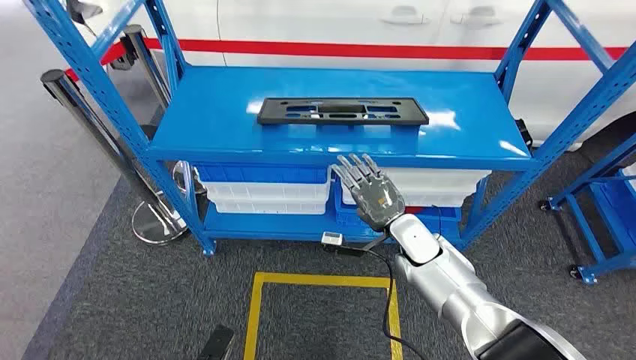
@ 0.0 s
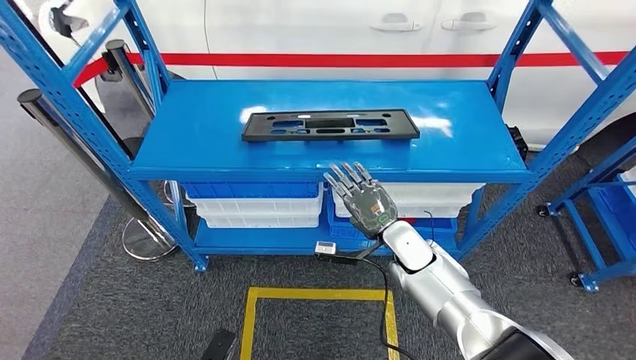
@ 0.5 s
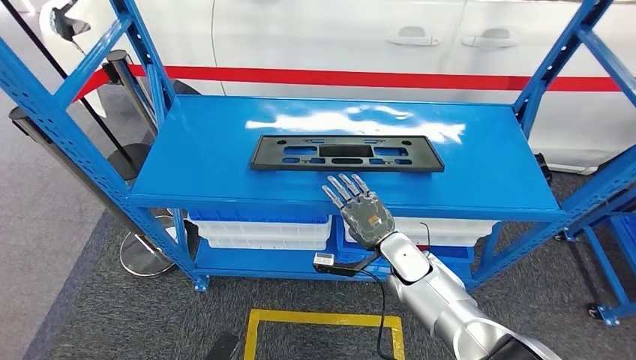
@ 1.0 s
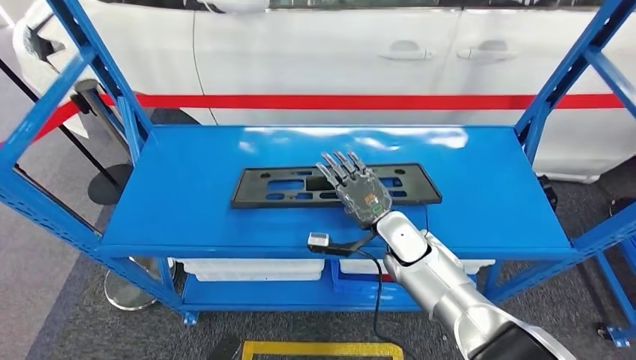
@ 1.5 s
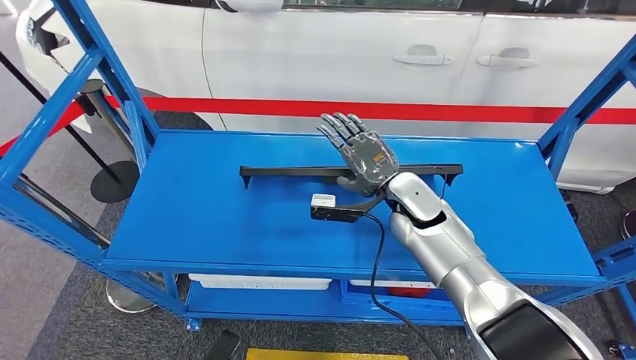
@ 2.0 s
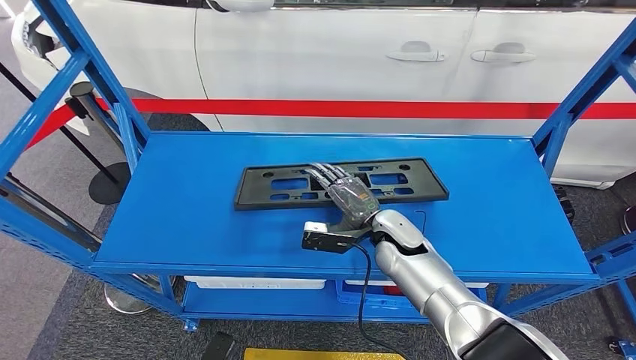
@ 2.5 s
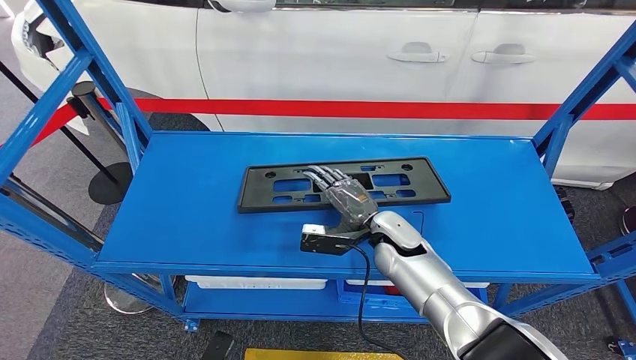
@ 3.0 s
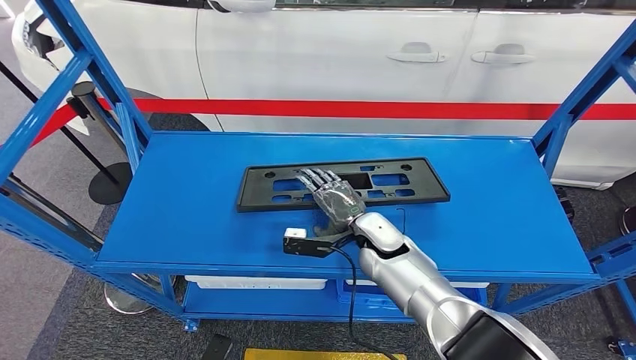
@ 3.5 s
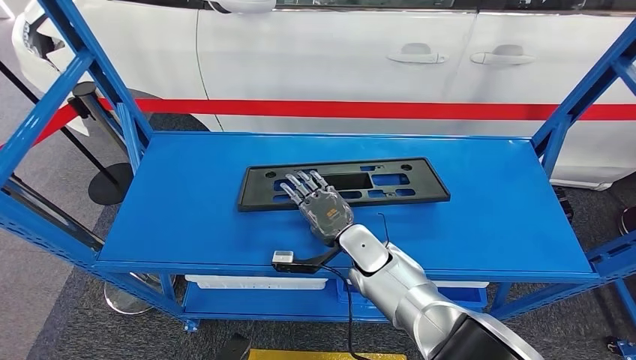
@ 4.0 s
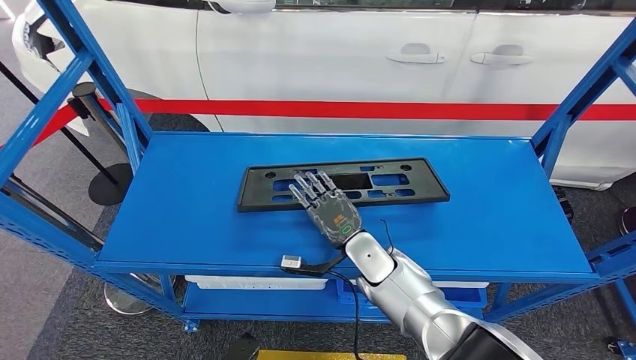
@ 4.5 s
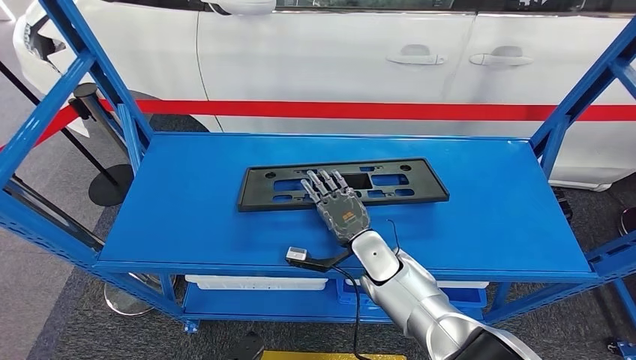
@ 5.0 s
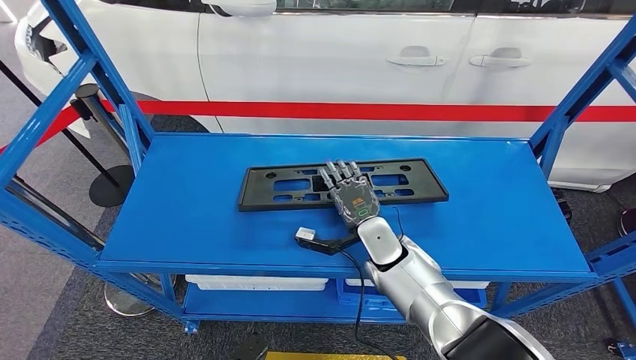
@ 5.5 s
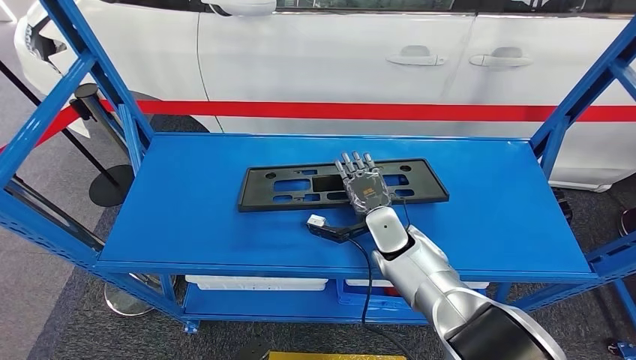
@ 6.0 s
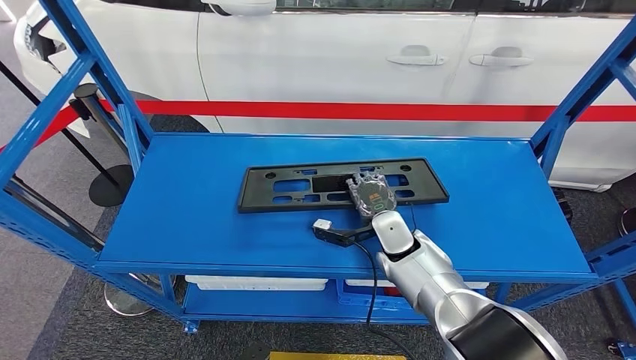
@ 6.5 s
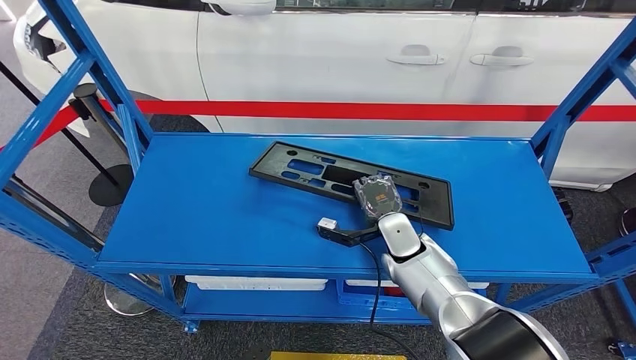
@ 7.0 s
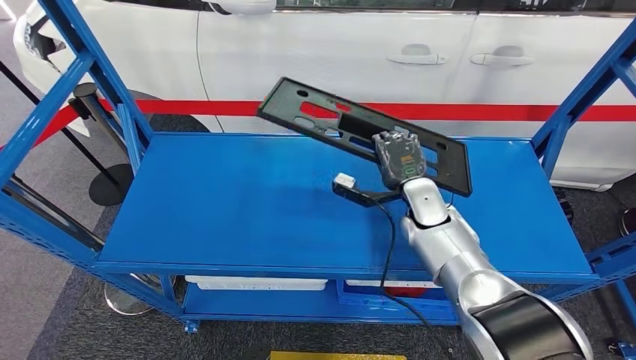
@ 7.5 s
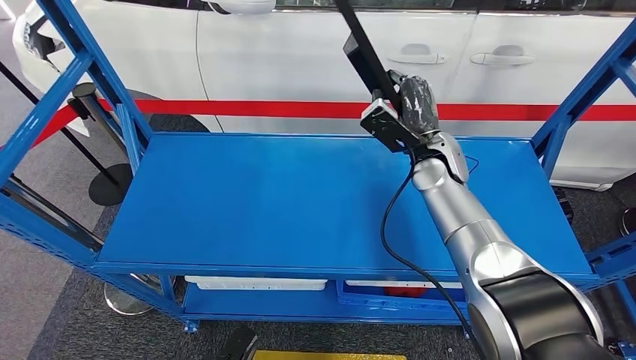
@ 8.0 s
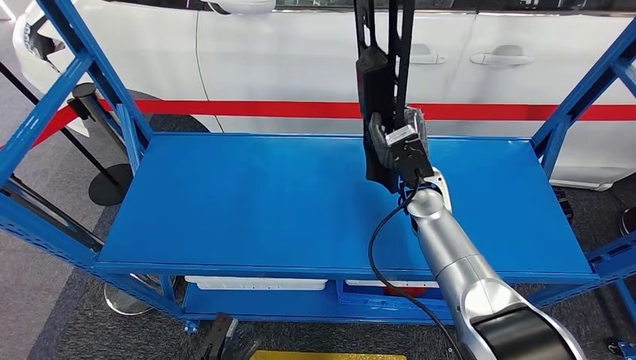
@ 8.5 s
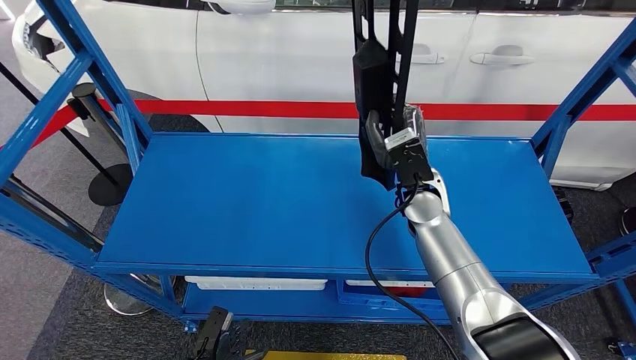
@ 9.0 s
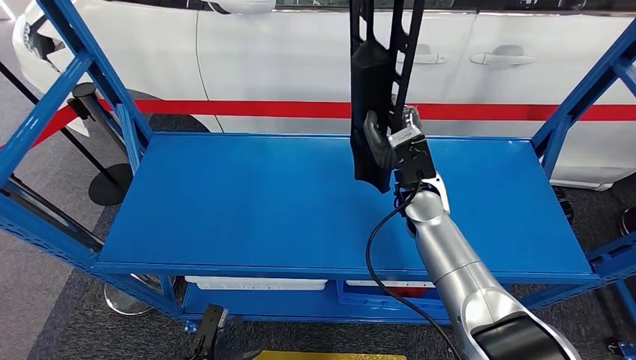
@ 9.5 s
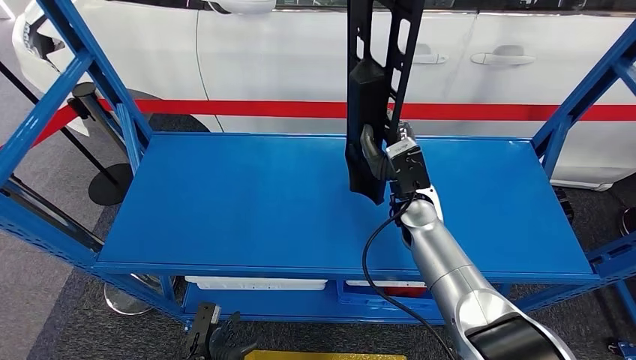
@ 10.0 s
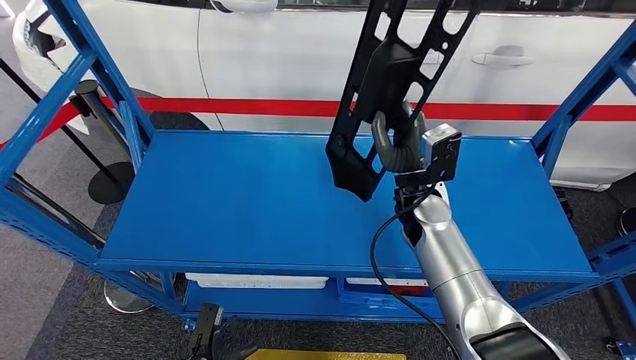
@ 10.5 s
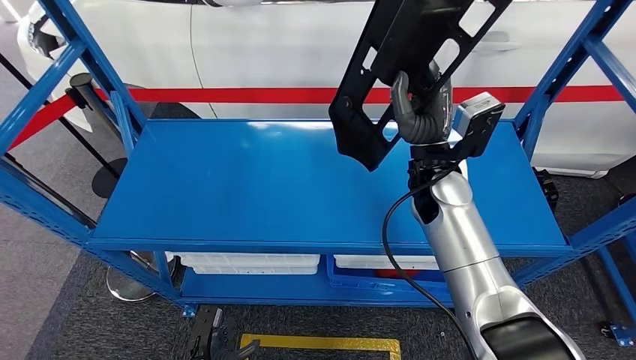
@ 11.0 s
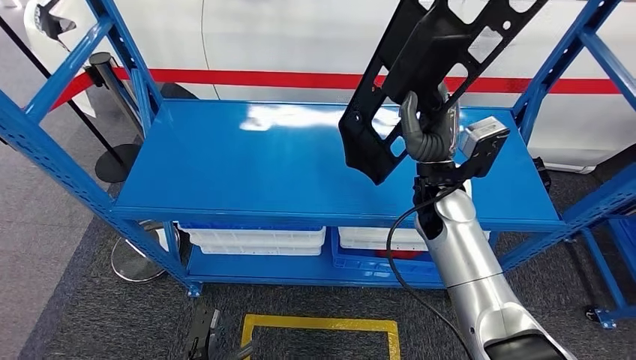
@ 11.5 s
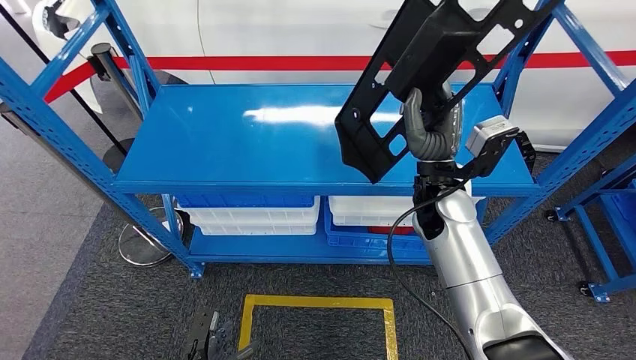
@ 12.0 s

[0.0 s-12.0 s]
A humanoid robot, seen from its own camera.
Step, 0.0 to 8.0 s: Pick up the large parts from the shelf.
4.0 to 6.0 s: The right hand ends up approximately 5 cm from where it was.
8.0 to 10.0 s: The right hand moves downward, roughly 5 cm.

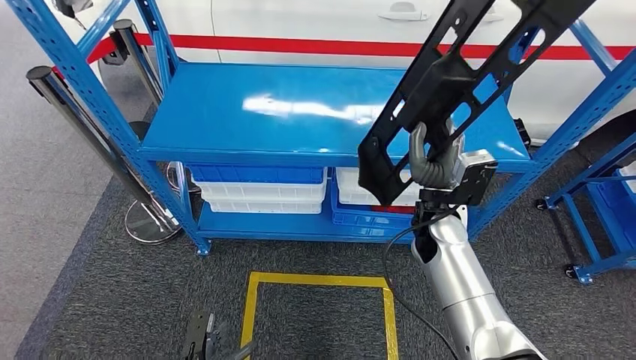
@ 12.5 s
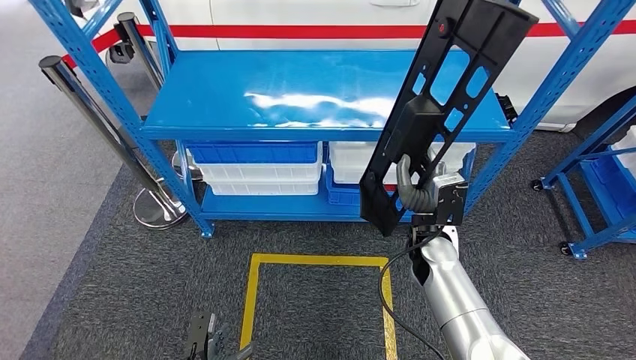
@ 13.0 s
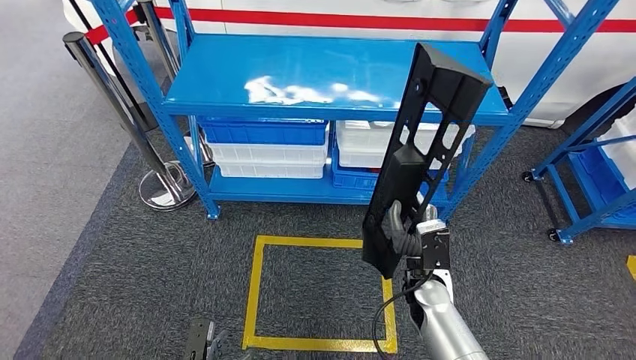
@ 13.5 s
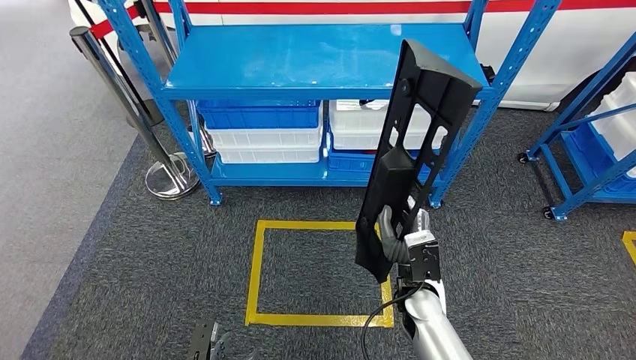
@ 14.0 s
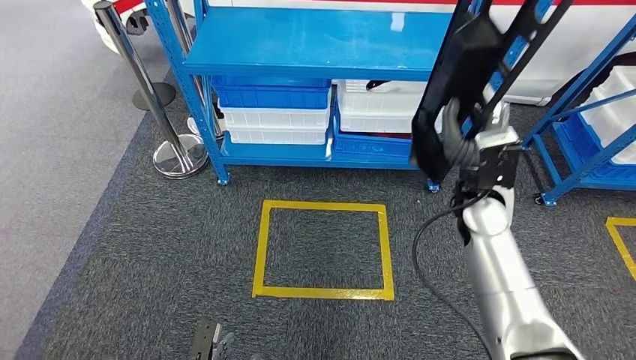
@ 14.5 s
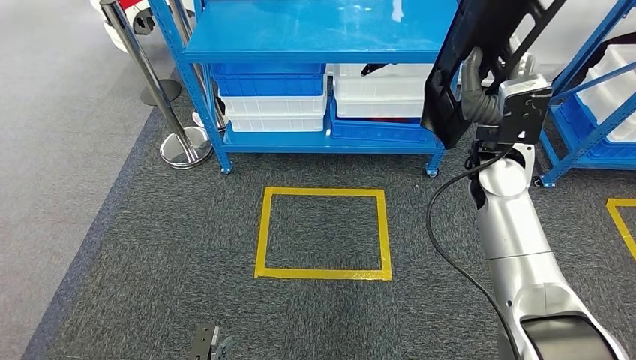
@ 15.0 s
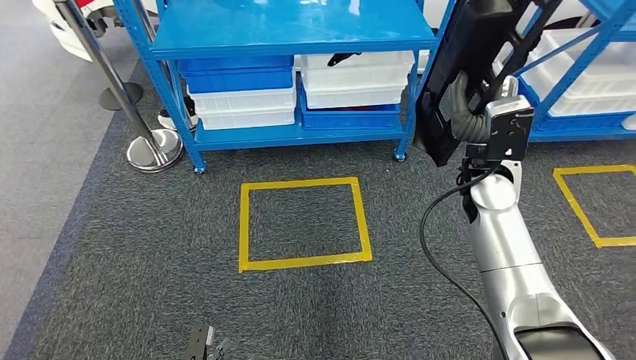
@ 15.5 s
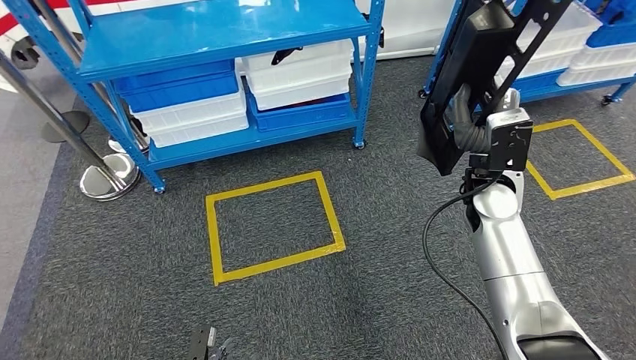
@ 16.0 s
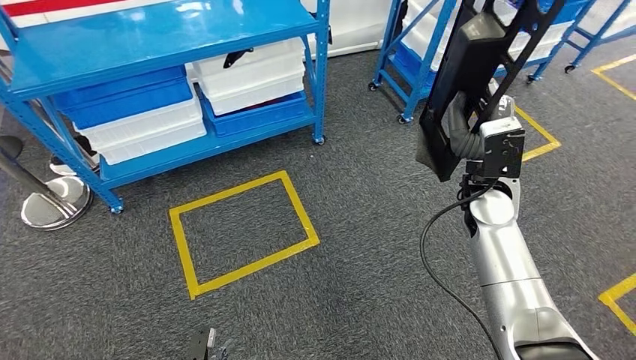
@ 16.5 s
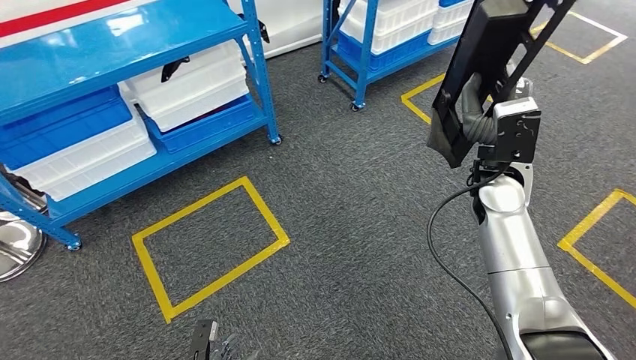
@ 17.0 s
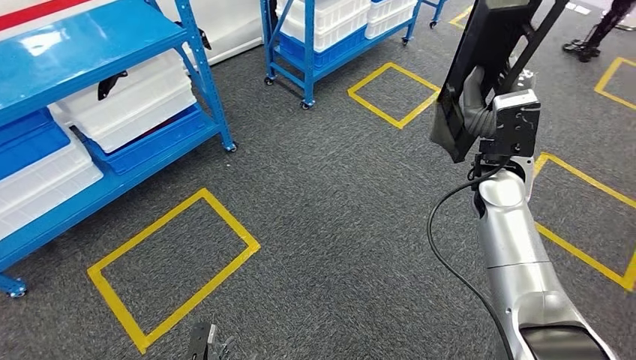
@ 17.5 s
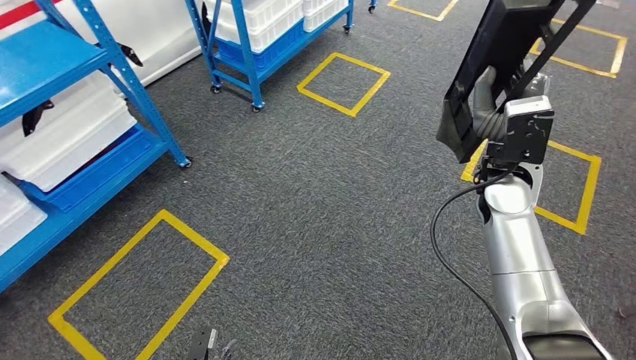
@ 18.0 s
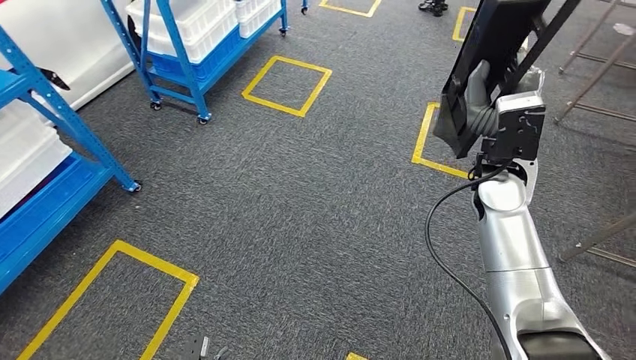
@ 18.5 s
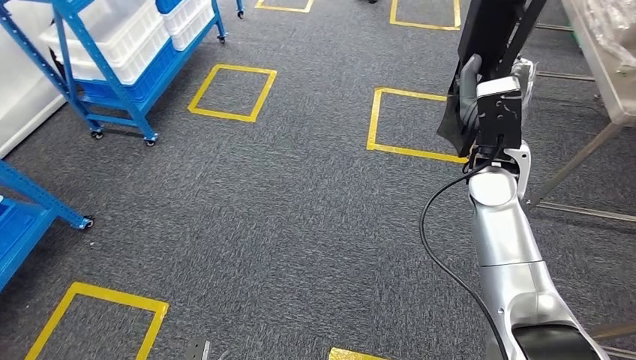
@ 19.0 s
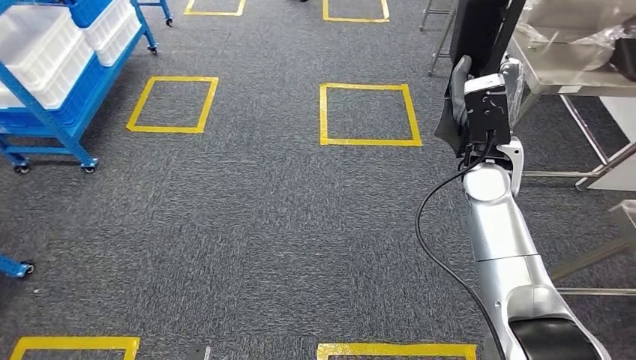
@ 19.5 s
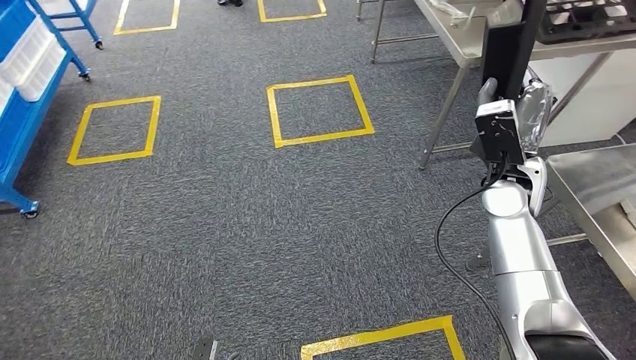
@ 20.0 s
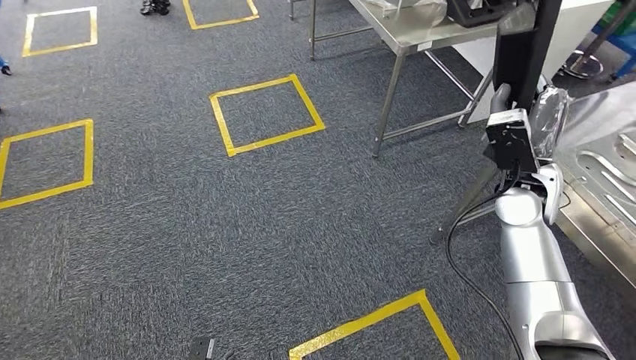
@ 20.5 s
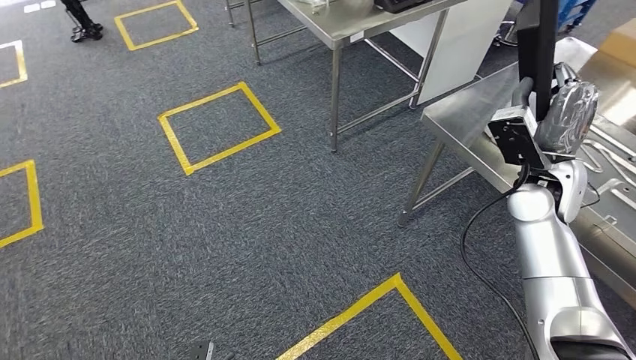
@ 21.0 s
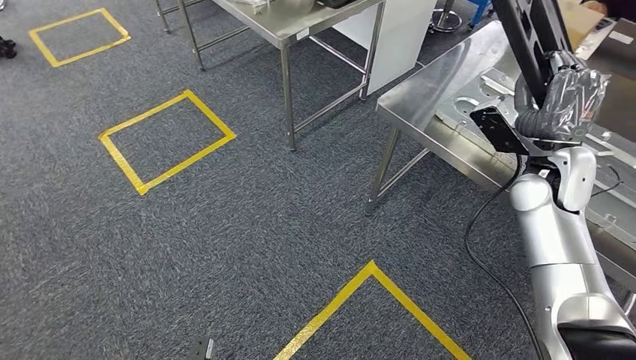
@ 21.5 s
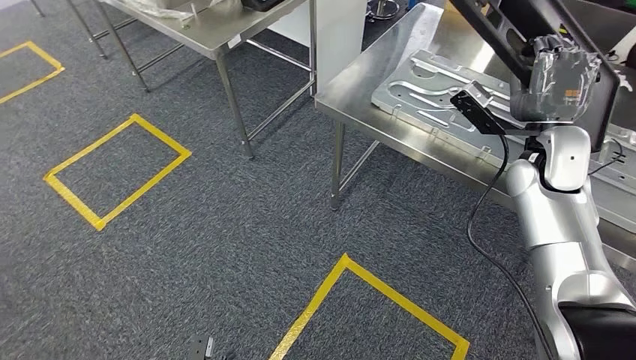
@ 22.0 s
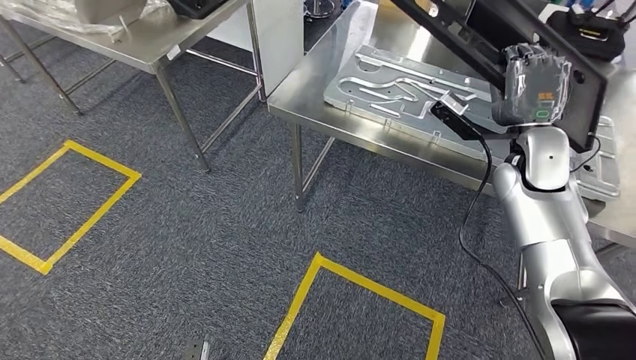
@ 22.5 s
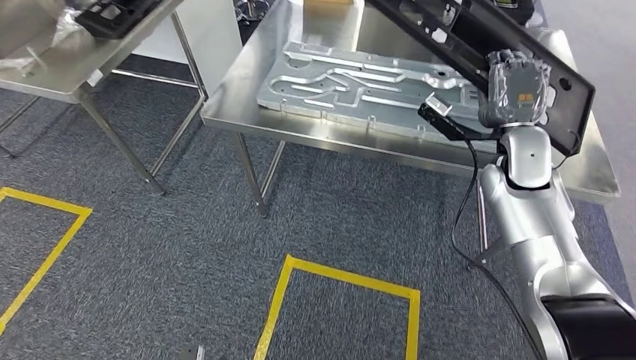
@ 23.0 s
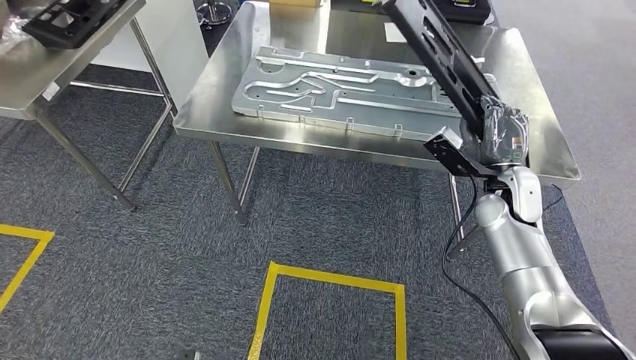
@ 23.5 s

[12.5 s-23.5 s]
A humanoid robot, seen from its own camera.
Step, 14.0 to 22.5 s: Move the large parts to the workbench.
